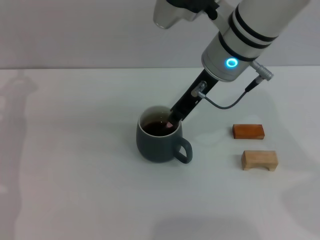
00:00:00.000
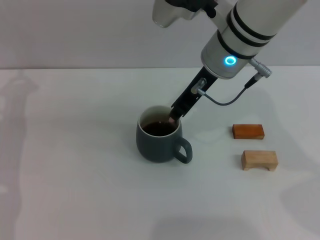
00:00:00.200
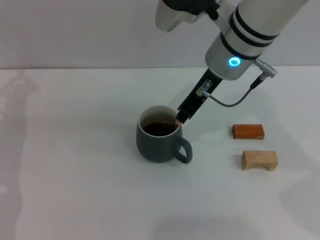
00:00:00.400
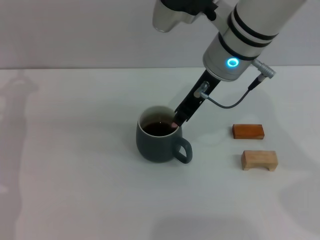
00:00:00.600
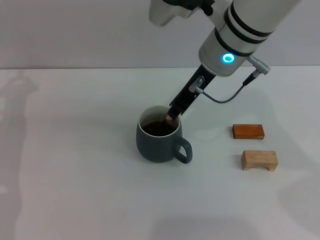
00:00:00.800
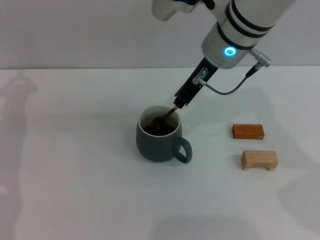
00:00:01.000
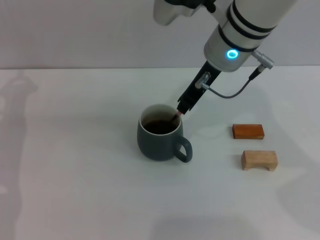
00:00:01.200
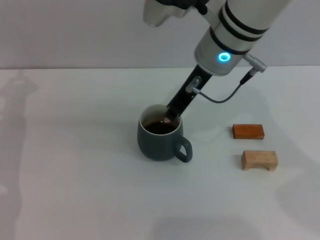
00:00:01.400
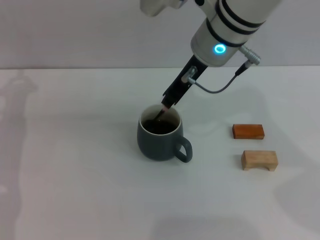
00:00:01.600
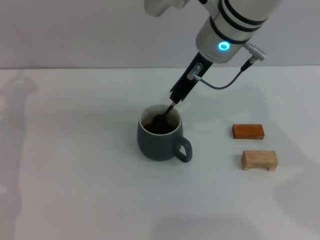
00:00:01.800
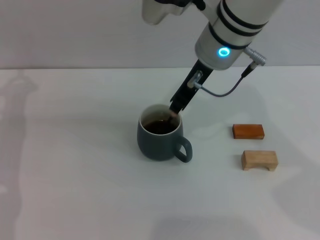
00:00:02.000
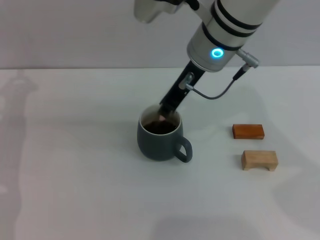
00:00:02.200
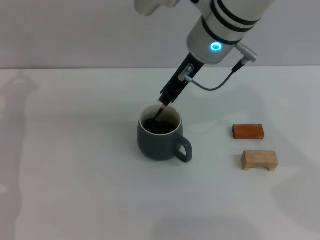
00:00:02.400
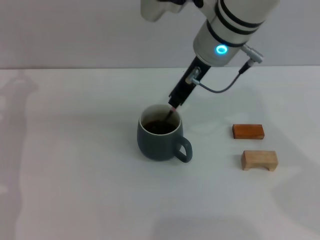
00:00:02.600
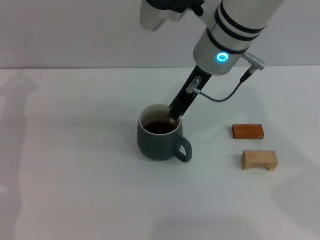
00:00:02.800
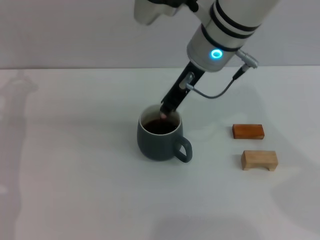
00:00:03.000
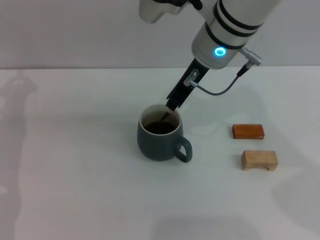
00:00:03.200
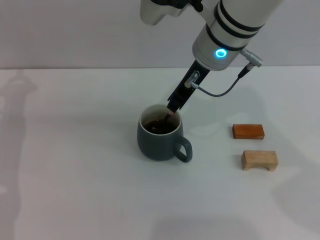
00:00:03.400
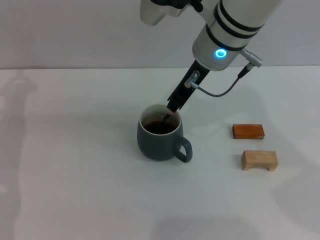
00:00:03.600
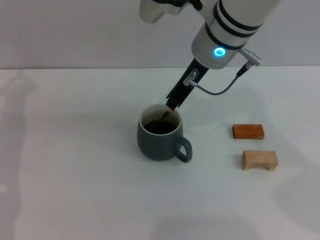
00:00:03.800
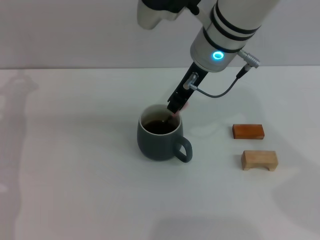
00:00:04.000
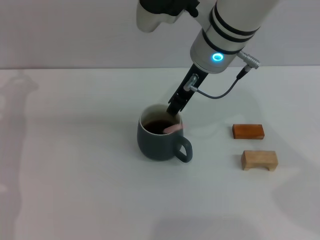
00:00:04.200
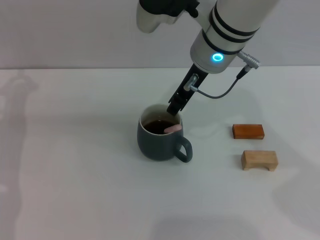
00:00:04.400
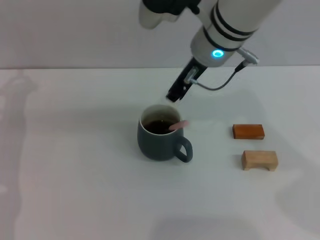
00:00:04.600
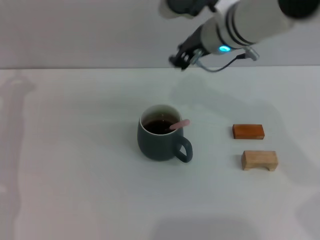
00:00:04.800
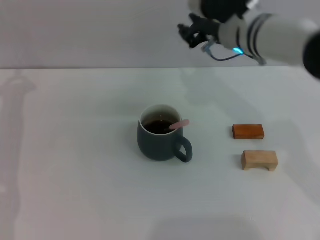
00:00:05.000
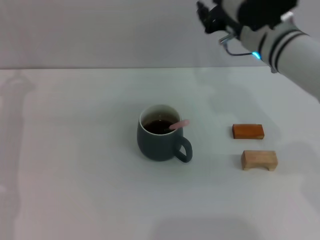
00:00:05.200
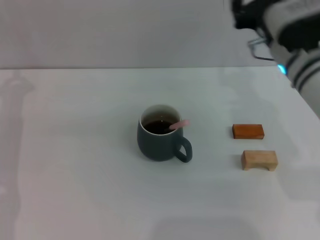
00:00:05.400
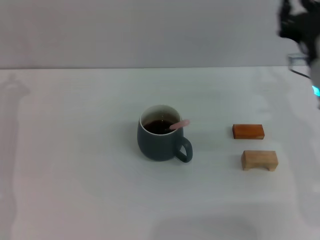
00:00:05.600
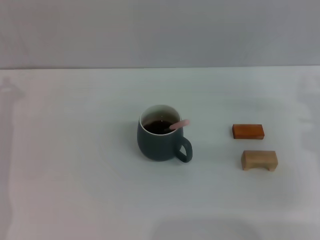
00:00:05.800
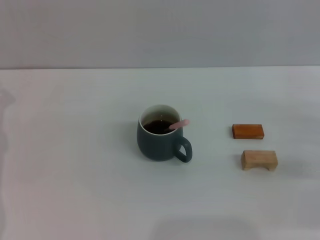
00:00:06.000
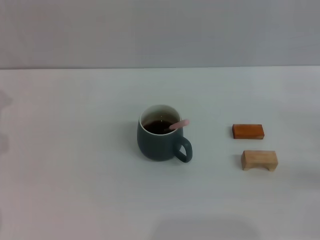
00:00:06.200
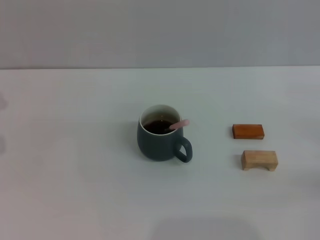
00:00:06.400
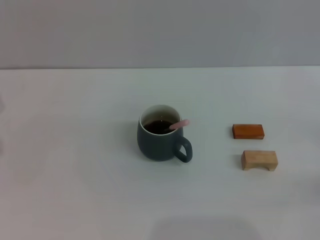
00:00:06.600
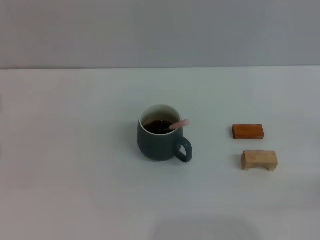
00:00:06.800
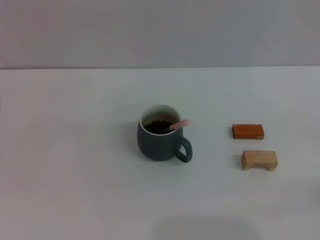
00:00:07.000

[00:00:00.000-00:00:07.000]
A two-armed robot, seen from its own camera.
Task of the whole recording: Move the grey cup to the center, lift the pink spoon, stir it three times in the cup, and put the spoon into the cup.
Step, 00:00:00.000 to 00:00:04.600: Stir the coffee in the cup with the right gripper.
00:00:00.000 to 00:00:04.200: The grippers stay close to where they were, moving slightly.
00:00:04.200 to 00:00:05.600: The right gripper shifts roughly 20 cm to the right and downward.
00:00:05.600 to 00:00:07.000: The right gripper is displaced to the right, backward and downward by approximately 20 cm.
